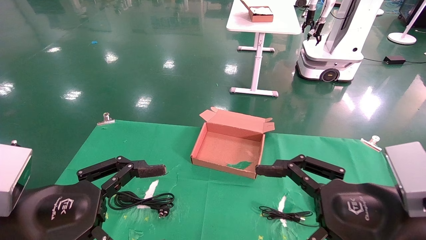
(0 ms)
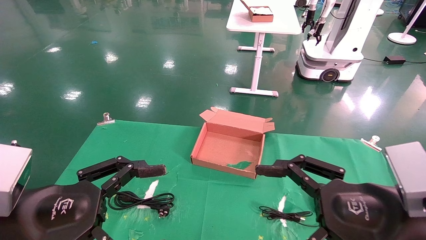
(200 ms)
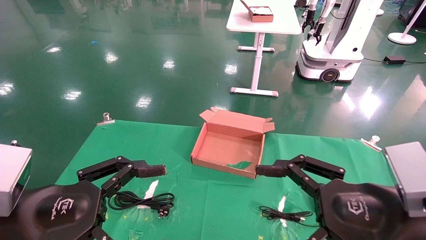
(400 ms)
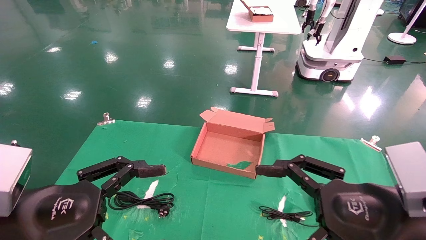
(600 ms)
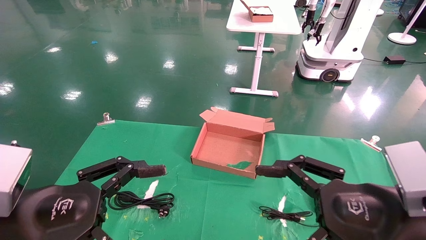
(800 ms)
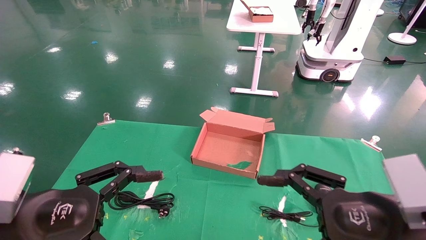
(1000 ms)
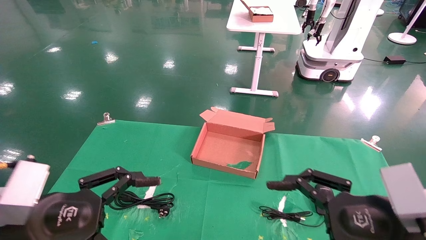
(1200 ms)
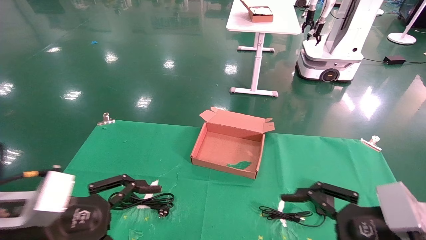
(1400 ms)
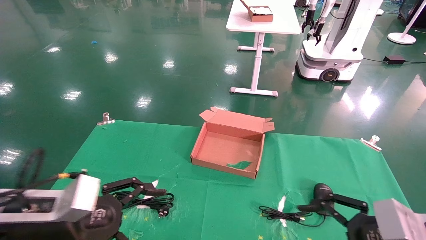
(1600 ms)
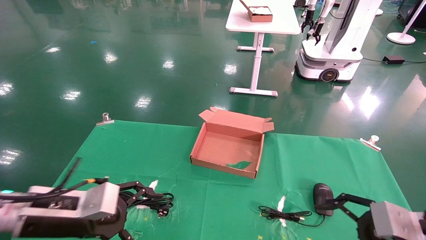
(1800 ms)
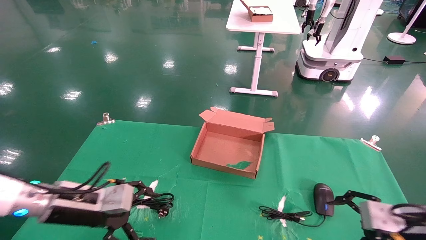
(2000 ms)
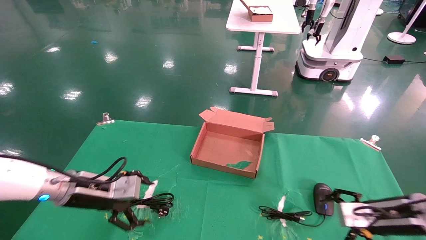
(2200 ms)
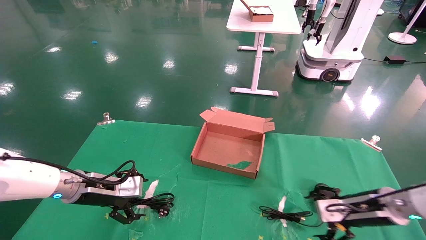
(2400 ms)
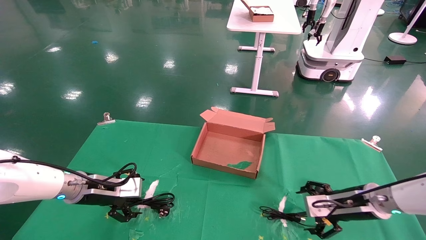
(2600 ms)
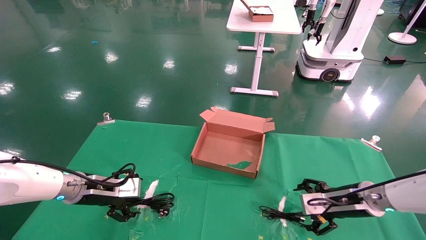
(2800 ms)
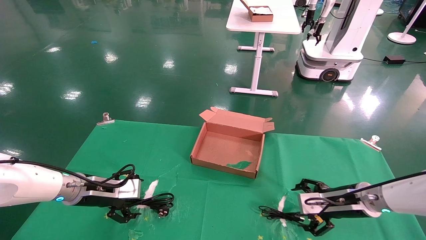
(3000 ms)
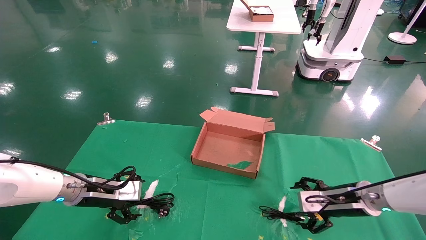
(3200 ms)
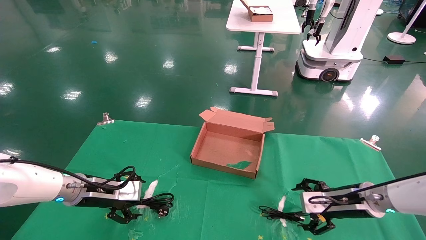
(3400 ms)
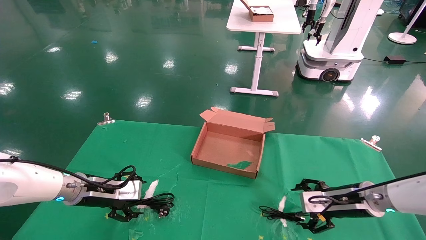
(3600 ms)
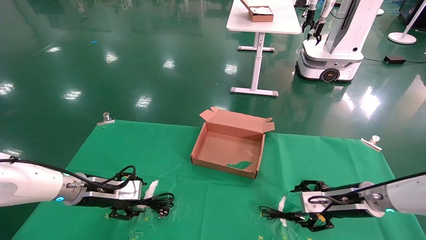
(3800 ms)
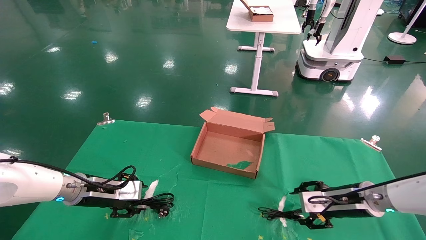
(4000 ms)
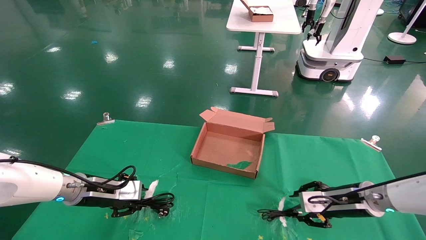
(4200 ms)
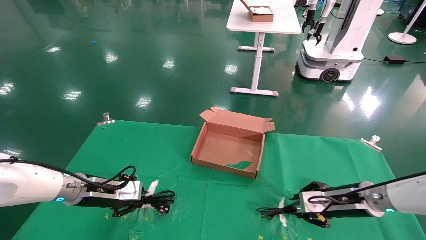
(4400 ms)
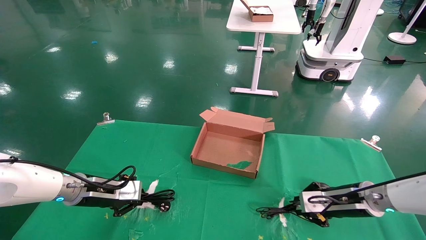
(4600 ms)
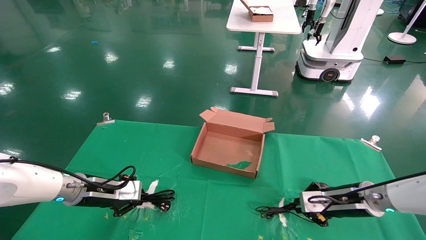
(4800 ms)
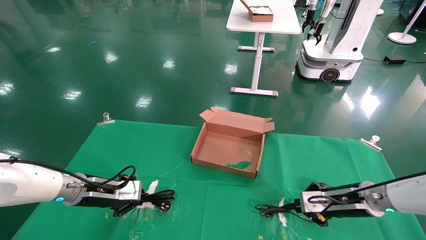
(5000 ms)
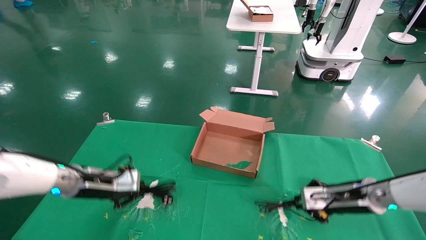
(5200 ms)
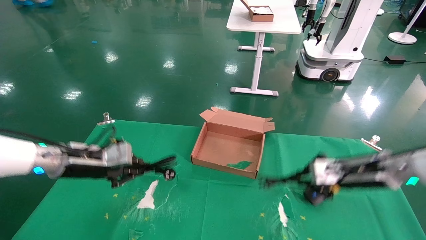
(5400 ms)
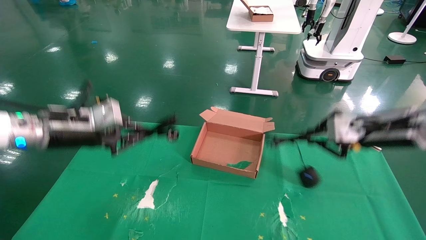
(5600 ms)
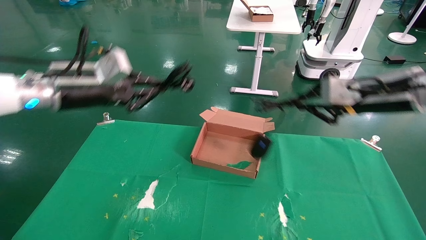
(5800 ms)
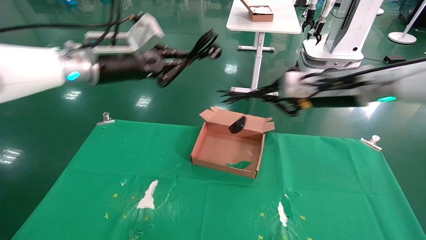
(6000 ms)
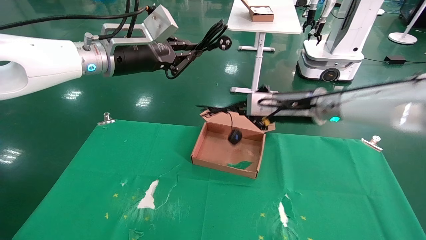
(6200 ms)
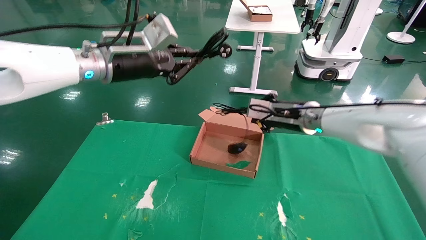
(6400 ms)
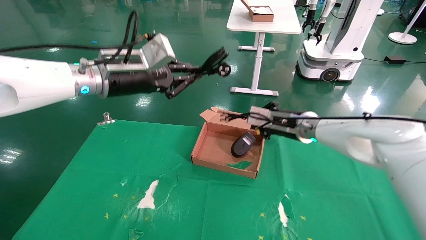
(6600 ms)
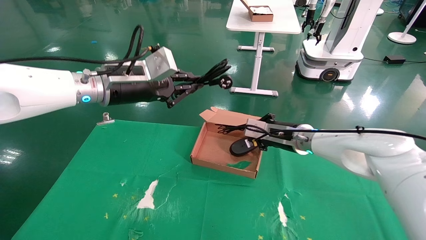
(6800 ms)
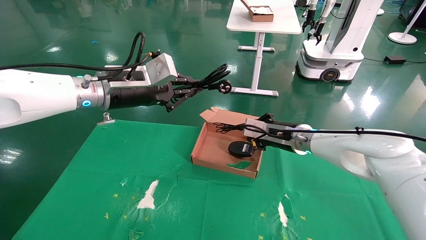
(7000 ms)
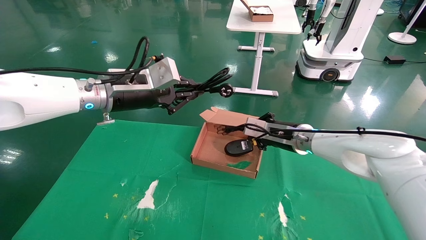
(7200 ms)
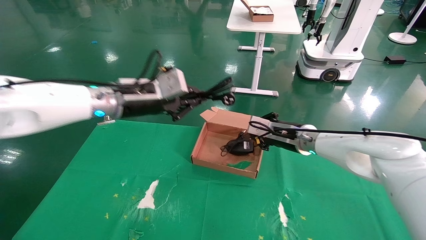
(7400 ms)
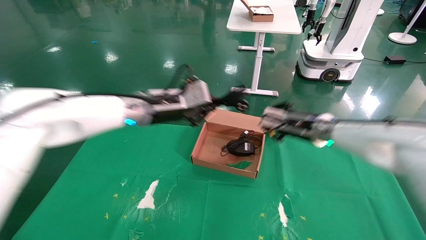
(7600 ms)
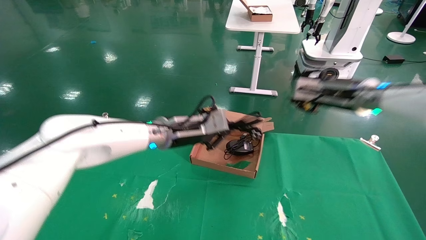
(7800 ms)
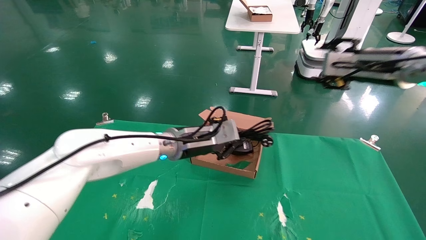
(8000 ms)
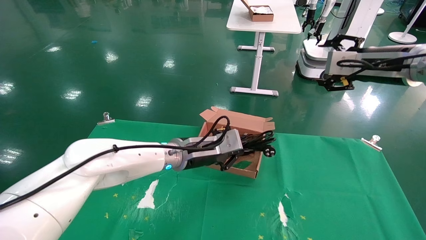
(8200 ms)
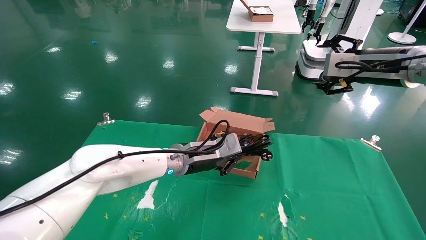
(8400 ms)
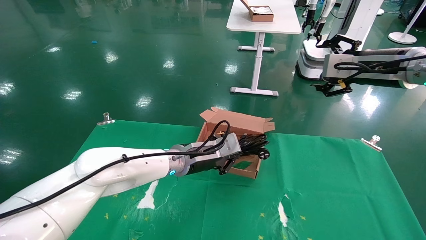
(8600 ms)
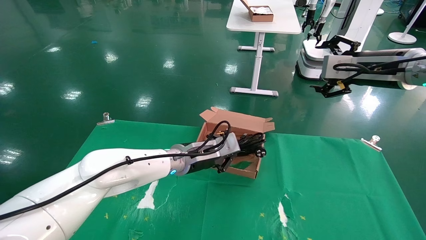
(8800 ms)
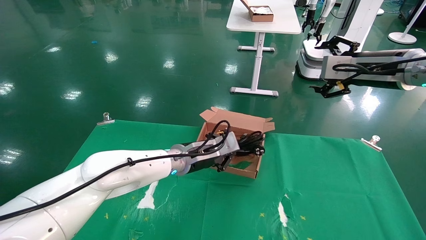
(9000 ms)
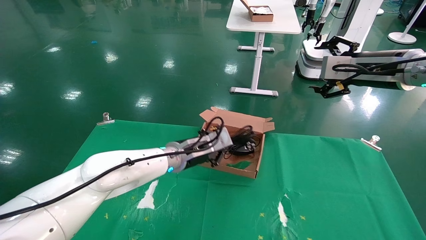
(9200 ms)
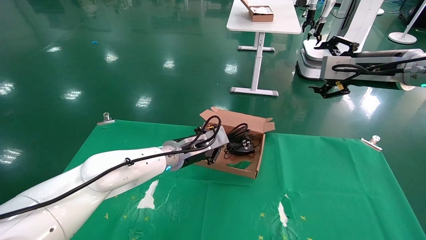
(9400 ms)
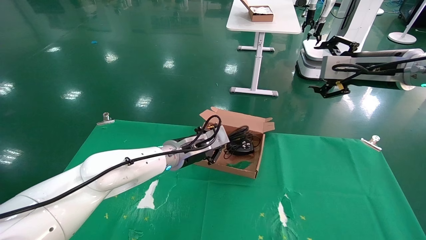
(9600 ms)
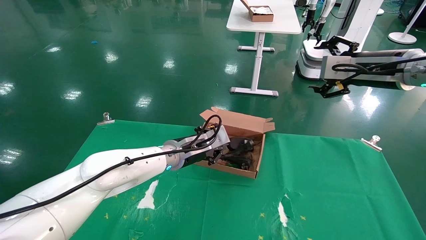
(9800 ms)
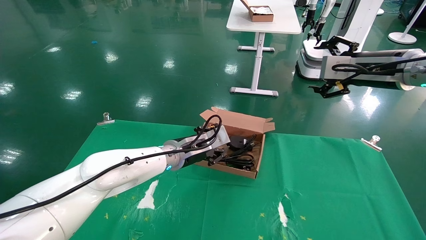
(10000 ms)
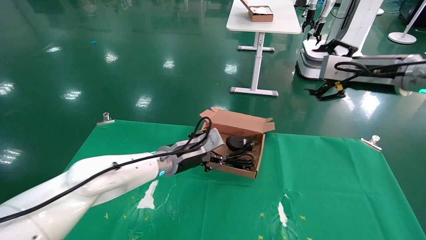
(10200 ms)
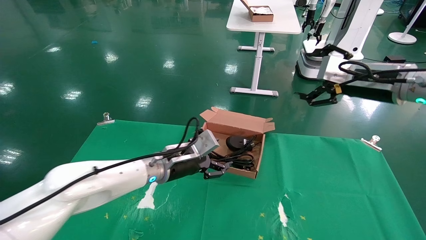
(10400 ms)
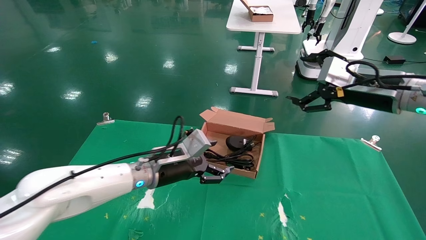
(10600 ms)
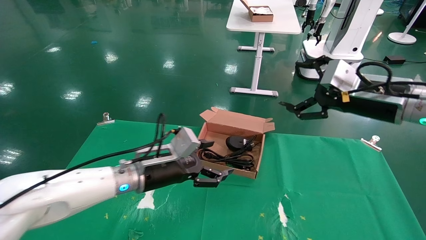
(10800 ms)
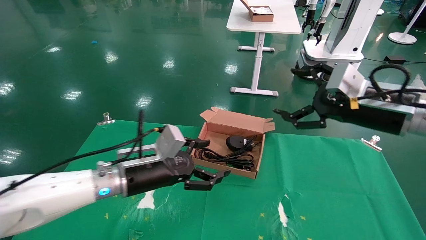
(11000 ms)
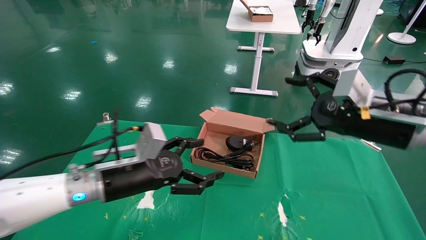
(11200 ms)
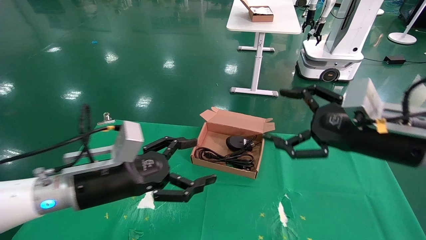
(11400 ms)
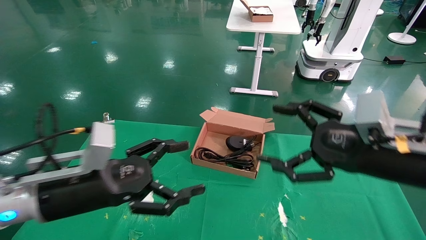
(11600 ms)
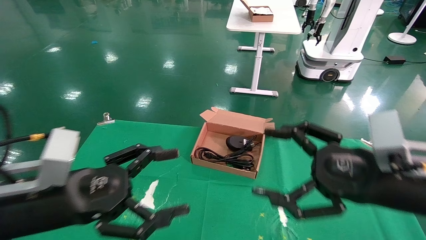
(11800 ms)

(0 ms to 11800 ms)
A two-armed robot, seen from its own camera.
Step, 2400 ms - 5800 ms: Grab and lift both the mouse and power cord from the accessory packaging area at the same time.
Step, 6000 ms - 10000 ms: Place the mouse and power cord into the box.
0 ms - 1400 ms: The right gripper shifts by about 5 cm.
1400 ms - 3000 ms: The left gripper is displaced forward by about 20 cm, while the right gripper heads forward and downward, covering some 20 cm.
3000 ms - 4400 ms: The right gripper closes its fingers; the left gripper closes.
4400 ms - 6000 ms: Both grippers travel together upward, about 25 cm. The right gripper closes.
6000 ms - 7400 ms: The left gripper shifts some 10 cm downward and to the right. Meanwhile the right gripper travels downward and forward by roughly 15 cm.
7400 ms - 8800 ms: The right gripper moves upward, to the right and backward, roughly 20 cm, and opens up, while the left gripper moves downward and to the right, approximately 15 cm.
8800 ms - 10400 ms: The left gripper changes place by approximately 5 cm, and opens its fingers.
10400 ms - 11800 ms: The right gripper travels backward and downward by some 20 cm. Meanwhile the left gripper shifts roughly 25 cm backward and to the left, and opens up.

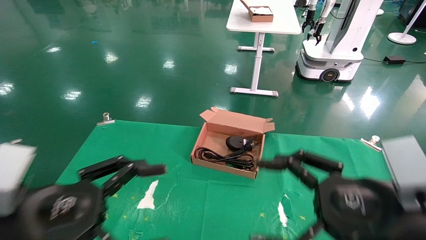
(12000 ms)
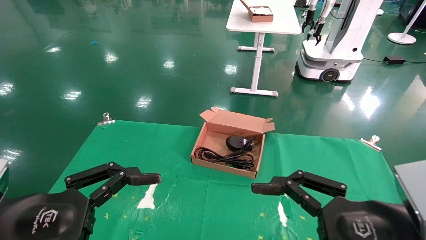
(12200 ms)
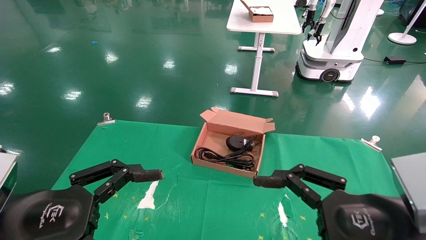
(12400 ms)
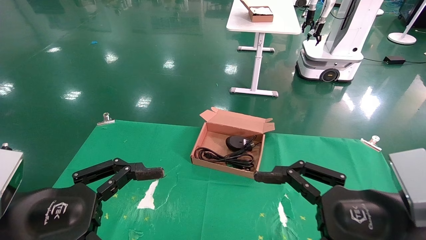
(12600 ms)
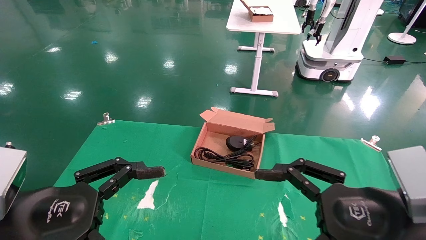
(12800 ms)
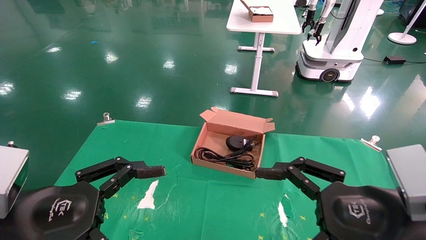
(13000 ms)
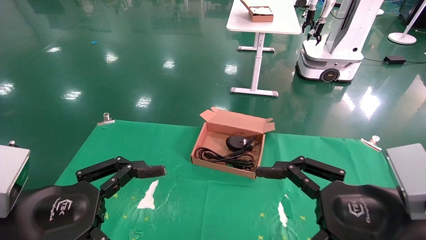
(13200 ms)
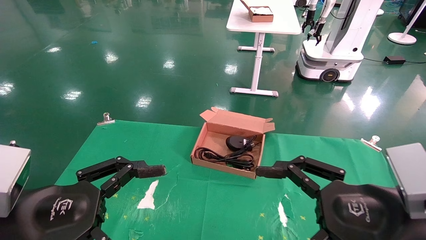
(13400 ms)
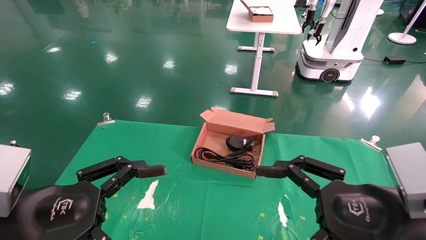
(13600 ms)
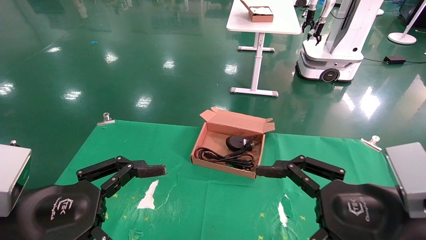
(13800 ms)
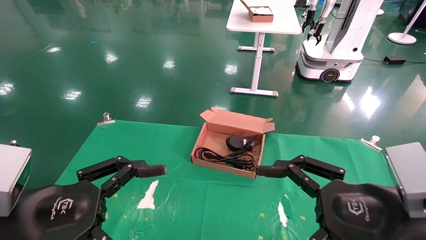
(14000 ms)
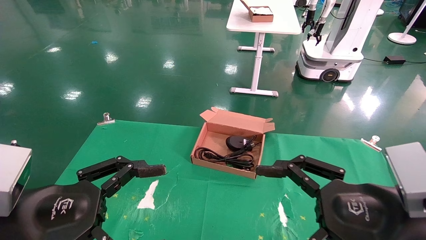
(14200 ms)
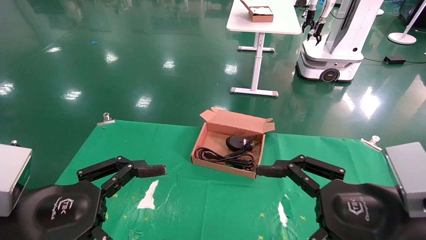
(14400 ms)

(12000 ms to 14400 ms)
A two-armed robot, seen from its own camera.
12000 ms - 13200 ms: The grippers move only a little.
13200 ms - 14400 ms: Neither gripper changes place.

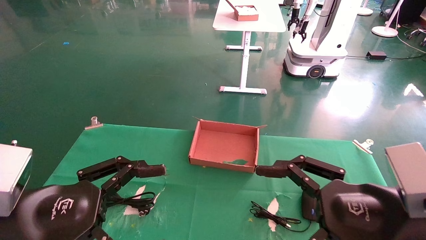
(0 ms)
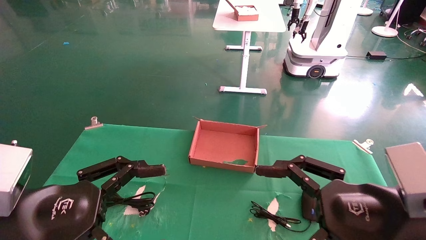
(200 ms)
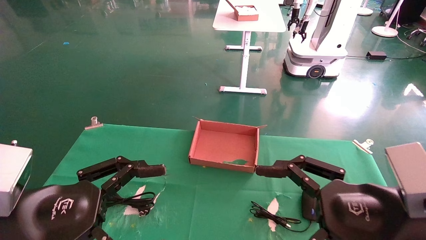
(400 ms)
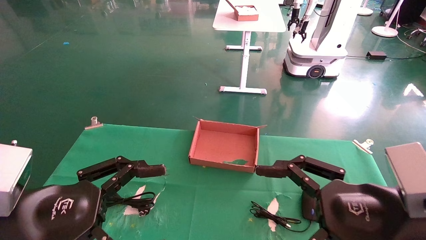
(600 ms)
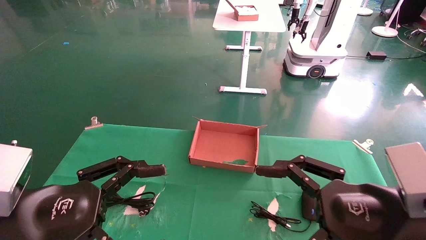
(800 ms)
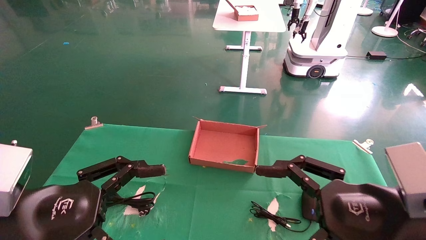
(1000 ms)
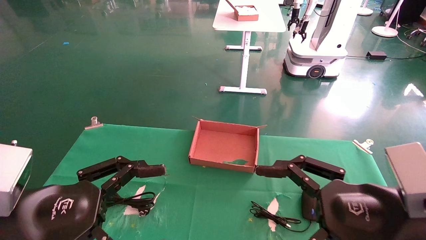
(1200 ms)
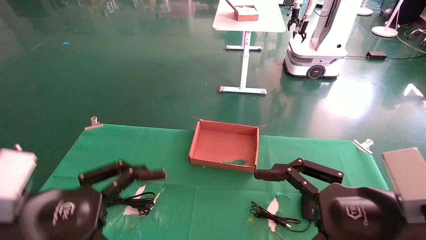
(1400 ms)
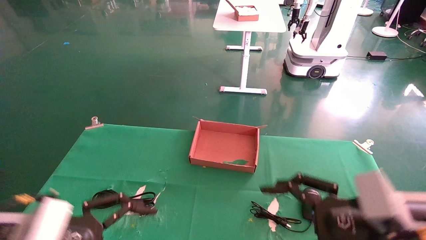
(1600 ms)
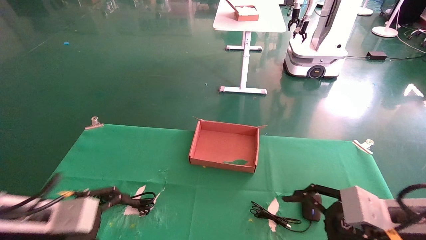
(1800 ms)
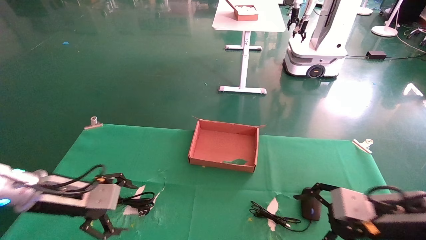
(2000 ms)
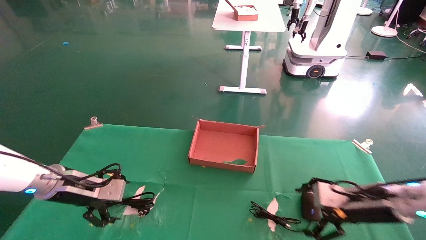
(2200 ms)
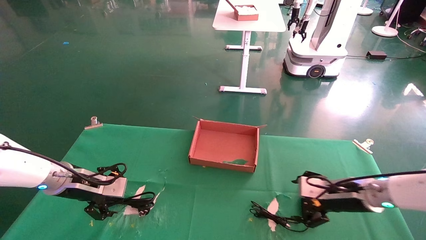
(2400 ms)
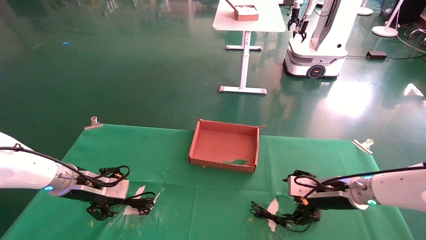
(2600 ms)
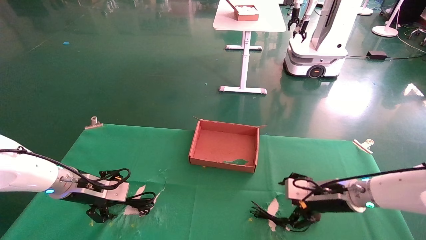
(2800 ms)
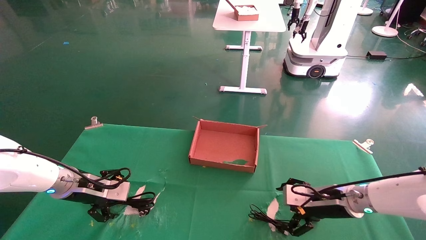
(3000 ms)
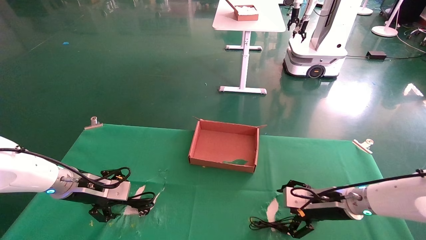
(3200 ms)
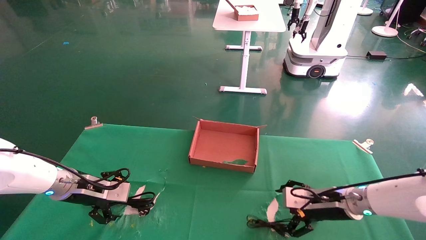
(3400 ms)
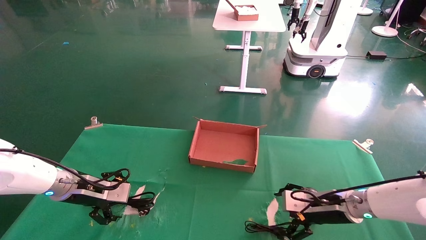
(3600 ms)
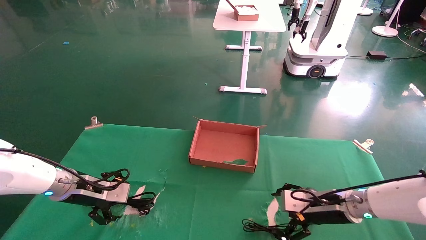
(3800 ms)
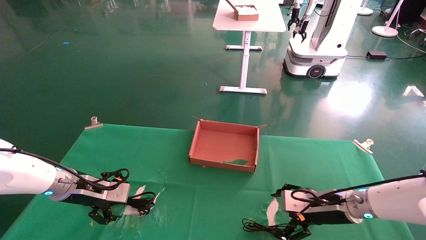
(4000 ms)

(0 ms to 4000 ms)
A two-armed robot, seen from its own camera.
0 ms - 1400 ms: The grippers make only small movements.
1400 ms - 2600 ms: The right gripper heads forward and downward, covering some 25 cm, while the left gripper heads forward, covering about 25 cm.
2600 ms - 4000 ms: The grippers make only small movements.
